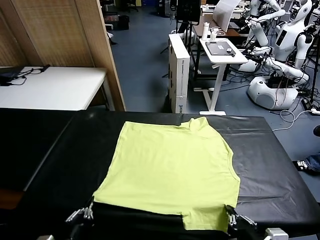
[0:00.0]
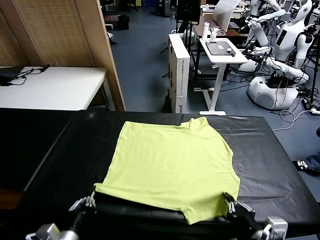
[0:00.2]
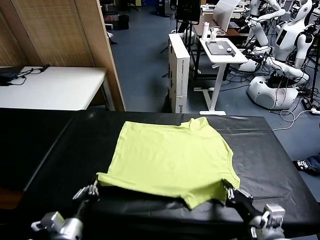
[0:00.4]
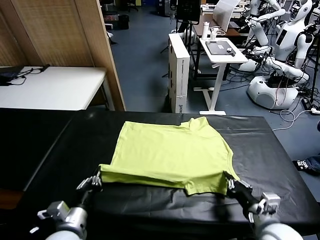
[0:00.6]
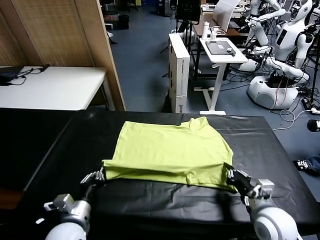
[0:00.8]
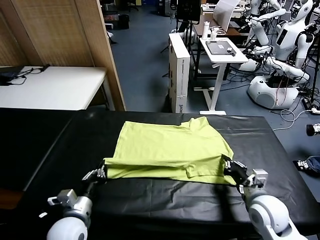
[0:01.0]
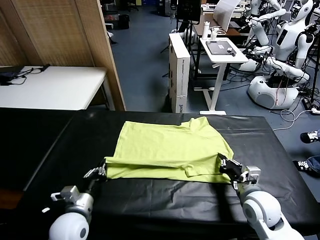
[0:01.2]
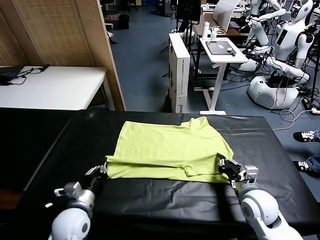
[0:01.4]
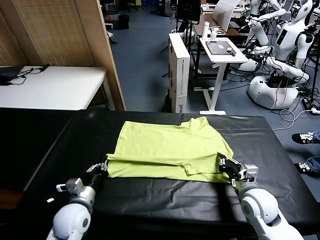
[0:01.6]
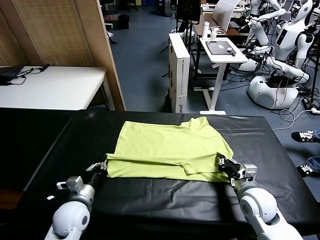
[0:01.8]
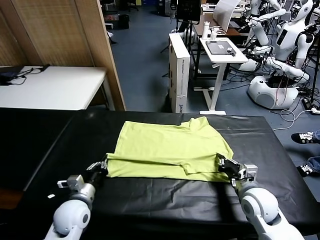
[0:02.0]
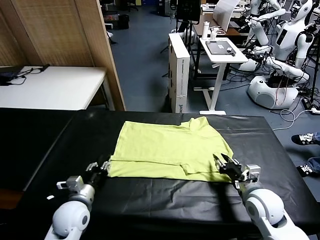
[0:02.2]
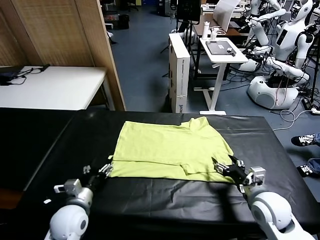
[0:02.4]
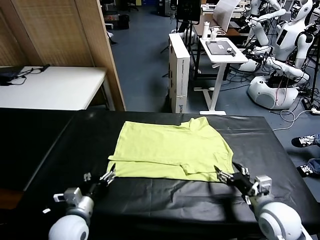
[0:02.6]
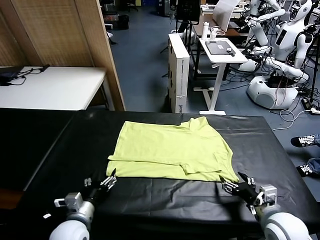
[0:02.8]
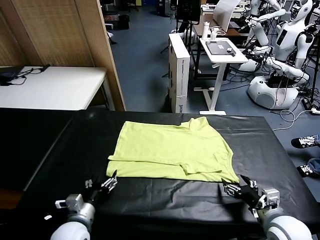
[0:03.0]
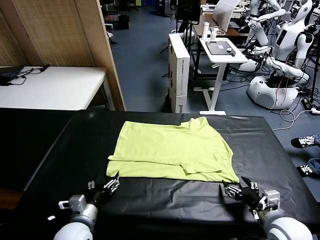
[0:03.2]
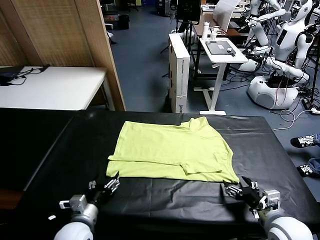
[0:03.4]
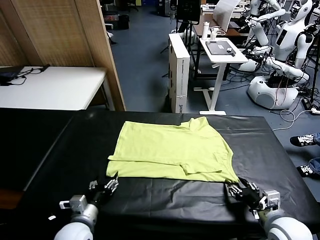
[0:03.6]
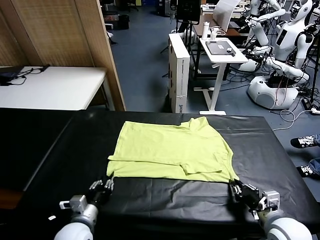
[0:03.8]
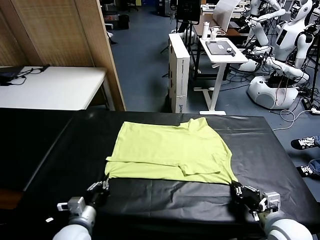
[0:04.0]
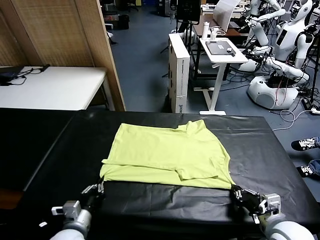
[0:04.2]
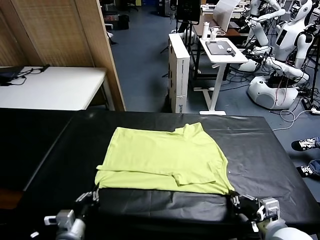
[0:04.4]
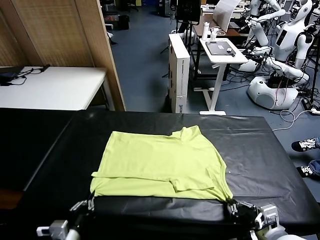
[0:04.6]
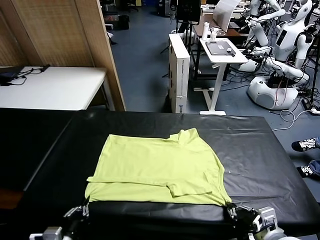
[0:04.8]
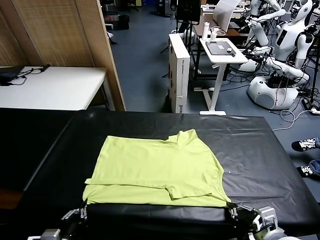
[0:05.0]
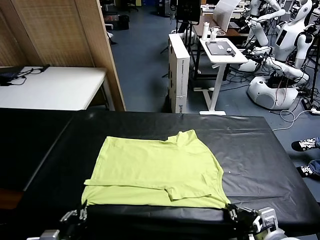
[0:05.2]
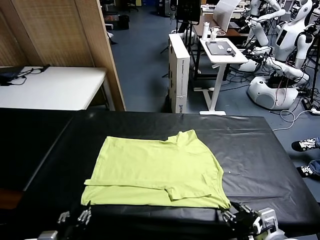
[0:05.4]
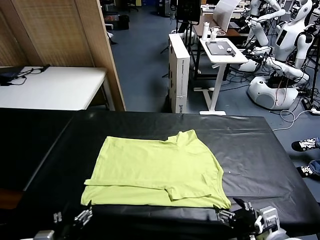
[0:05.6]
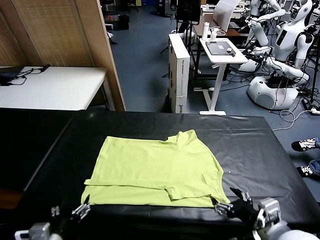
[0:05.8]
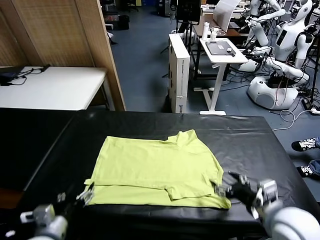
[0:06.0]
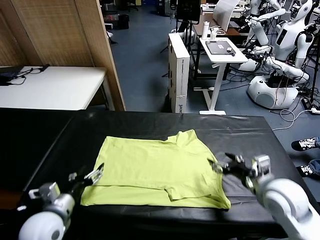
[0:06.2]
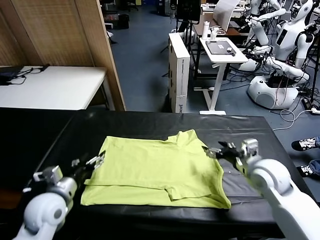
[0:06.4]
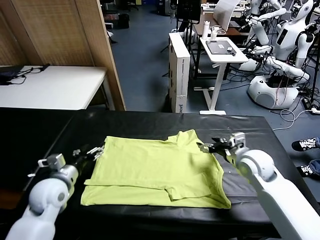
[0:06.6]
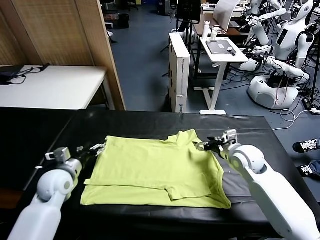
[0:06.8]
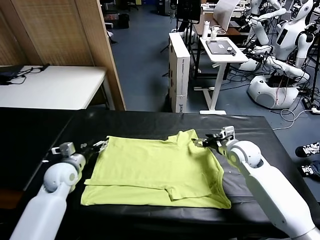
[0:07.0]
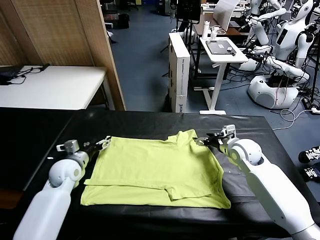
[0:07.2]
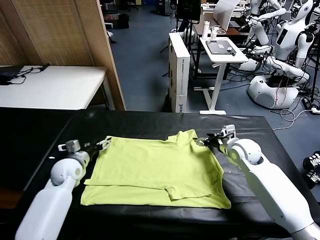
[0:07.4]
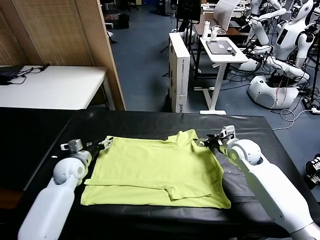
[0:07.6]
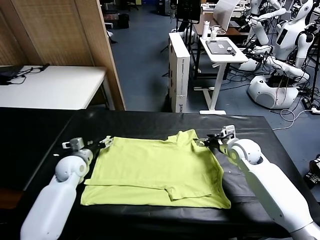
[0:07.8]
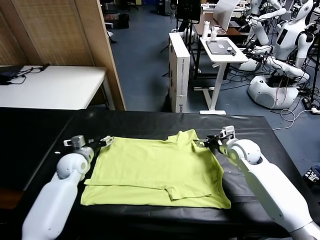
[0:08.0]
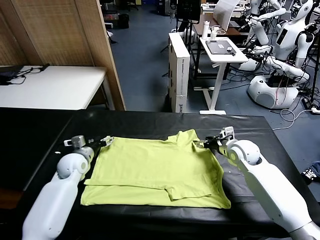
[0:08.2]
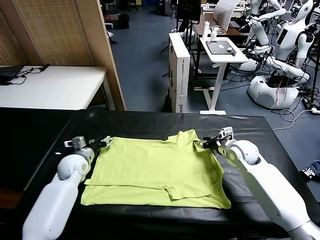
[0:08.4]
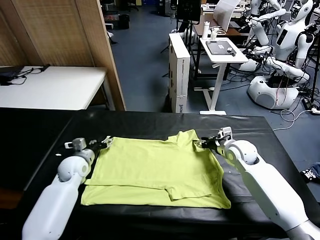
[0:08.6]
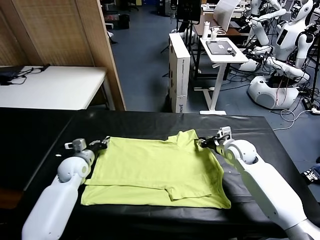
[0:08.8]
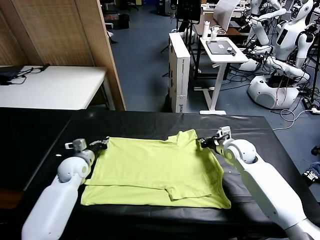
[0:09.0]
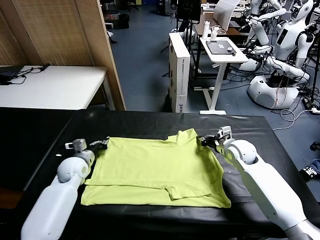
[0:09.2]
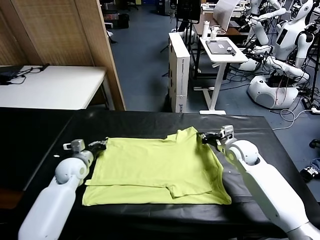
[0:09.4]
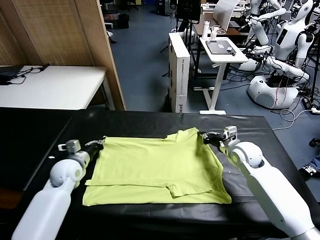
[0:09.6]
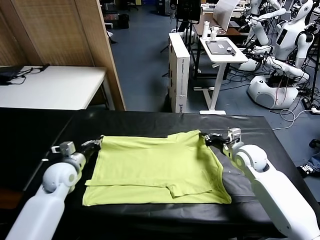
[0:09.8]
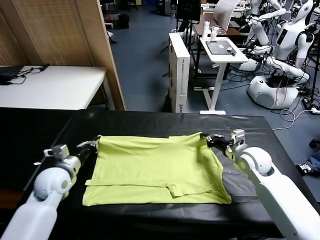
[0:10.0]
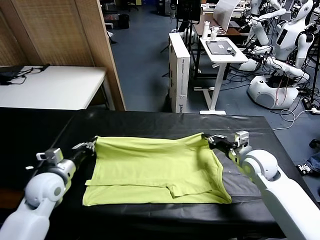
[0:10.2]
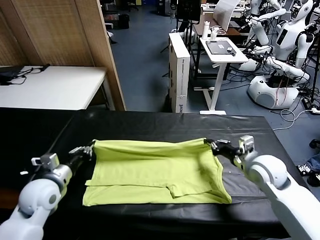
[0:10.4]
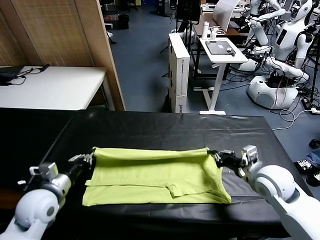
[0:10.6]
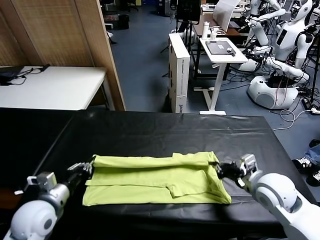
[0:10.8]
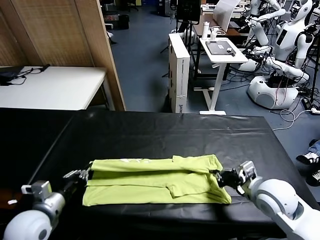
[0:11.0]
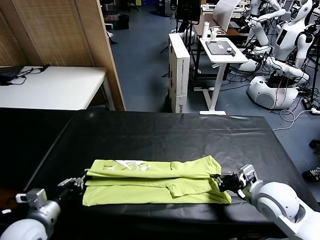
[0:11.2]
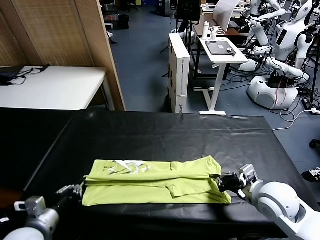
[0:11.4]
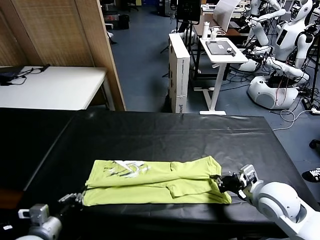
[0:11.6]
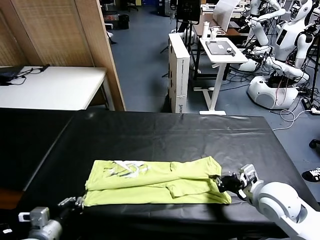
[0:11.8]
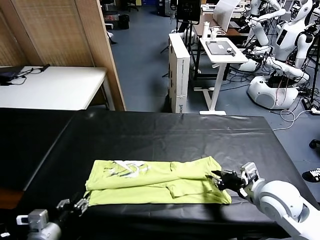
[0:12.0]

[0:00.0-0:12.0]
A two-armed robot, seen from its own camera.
Task of the whole recording: fold and organize the clothes.
Step, 0.0 to 2.2 s: use both grippers to drag the lower edge of the fabric forward and fold it over the upper edge.
Step, 2.4 to 5.4 s: Drag the clothes downward with both gripper.
Step, 5.6 to 9.0 s: use both grippers simultaneously to clamp the upper edge of the clothing fabric.
0.0 to 1.6 s: The right gripper goes about 20 cm forward and downward, while the left gripper travels forward by approximately 15 cm.
1.6 to 3.0 s: The right gripper travels backward by roughly 10 cm, and opens its fingers, while the left gripper goes some 5 cm backward, and opens.
3.0 to 4.4 s: The grippers both shift backward by approximately 5 cm. The right gripper closes its fingers. Meanwhile the left gripper closes its fingers.
4.4 to 6.0 s: The right gripper heads forward, covering some 15 cm, and opens; the left gripper moves forward and upward, roughly 10 cm, and opens.
6.0 to 7.6 s: Both grippers move forward, roughly 20 cm.
7.6 to 9.0 s: The left gripper closes. The right gripper closes its fingers.
9.0 to 10.4 s: Both grippers travel together backward and upward, some 15 cm.
10.4 to 12.0 s: The right gripper is displaced backward by roughly 5 cm, and opens. The left gripper goes about 15 cm backward, and opens up.

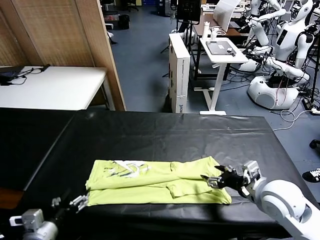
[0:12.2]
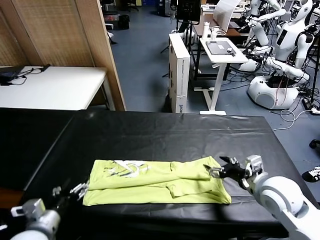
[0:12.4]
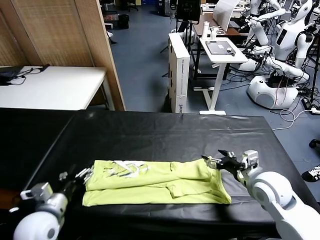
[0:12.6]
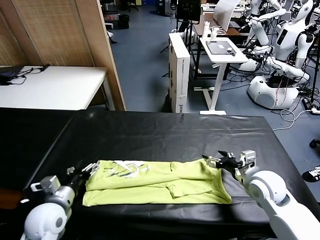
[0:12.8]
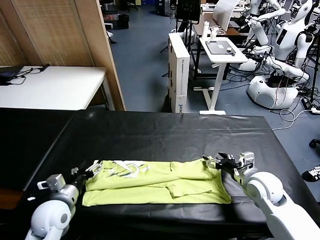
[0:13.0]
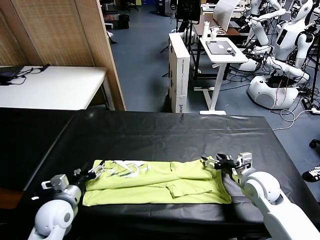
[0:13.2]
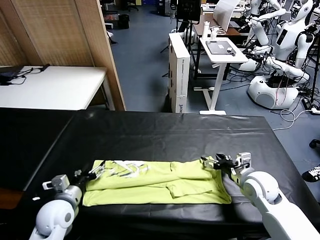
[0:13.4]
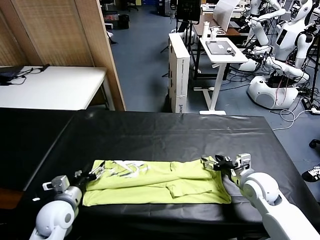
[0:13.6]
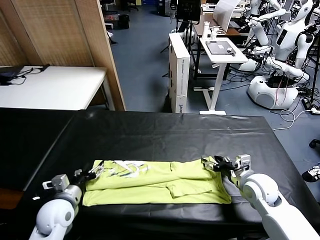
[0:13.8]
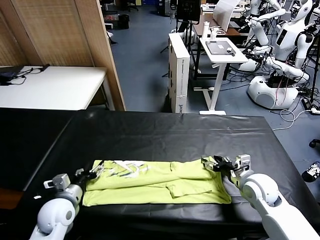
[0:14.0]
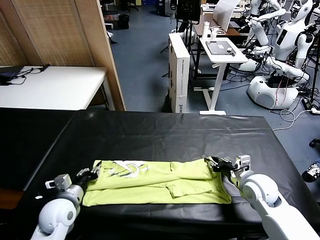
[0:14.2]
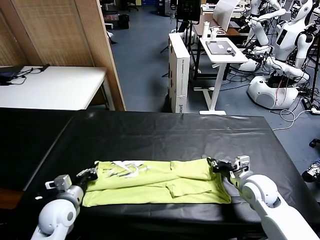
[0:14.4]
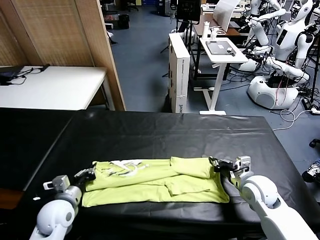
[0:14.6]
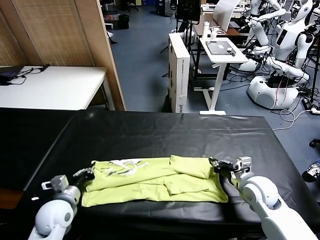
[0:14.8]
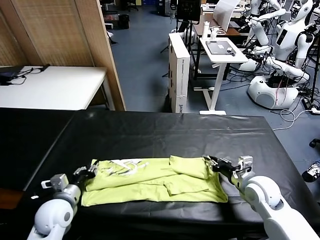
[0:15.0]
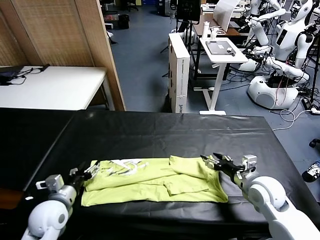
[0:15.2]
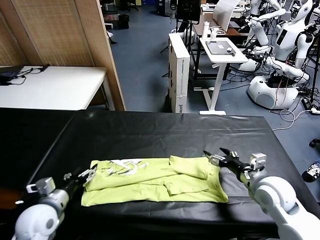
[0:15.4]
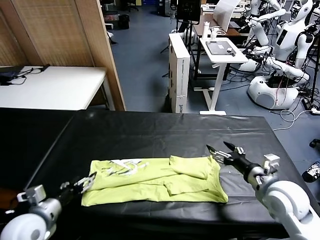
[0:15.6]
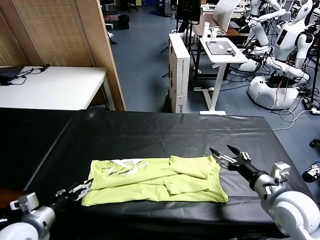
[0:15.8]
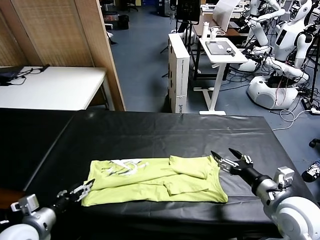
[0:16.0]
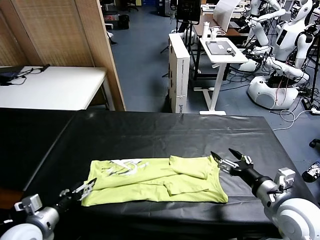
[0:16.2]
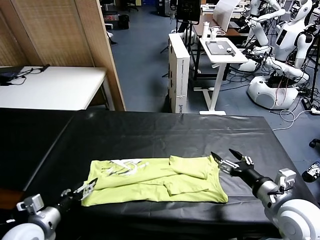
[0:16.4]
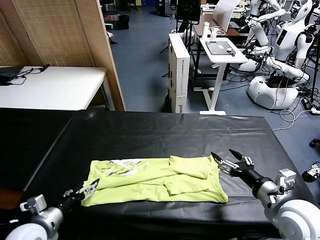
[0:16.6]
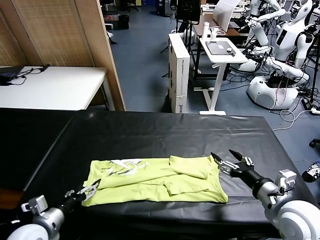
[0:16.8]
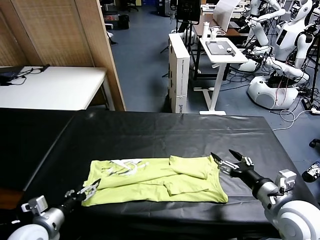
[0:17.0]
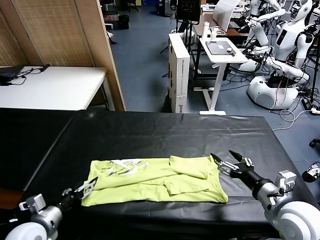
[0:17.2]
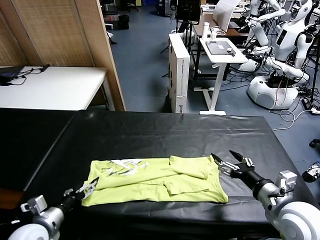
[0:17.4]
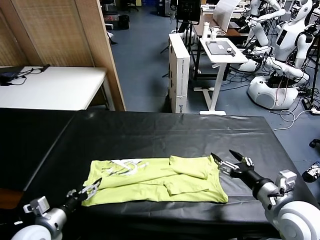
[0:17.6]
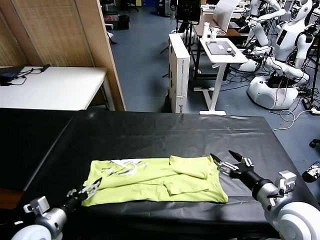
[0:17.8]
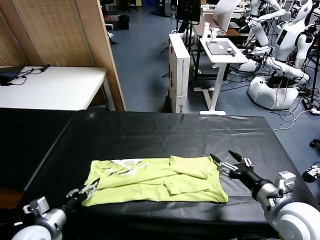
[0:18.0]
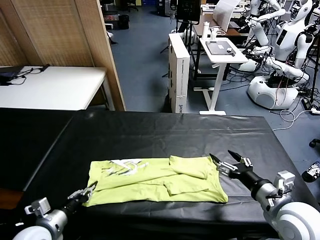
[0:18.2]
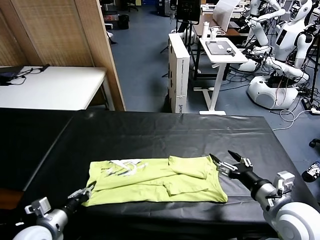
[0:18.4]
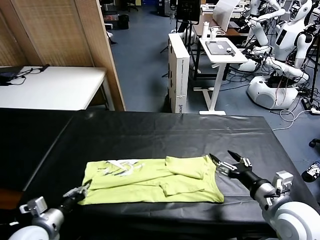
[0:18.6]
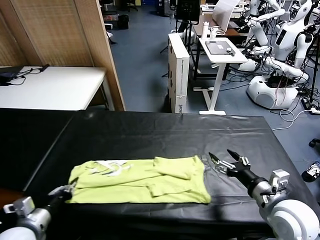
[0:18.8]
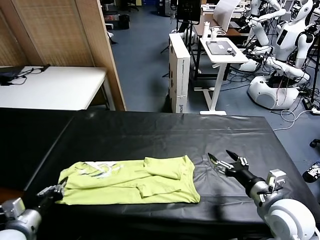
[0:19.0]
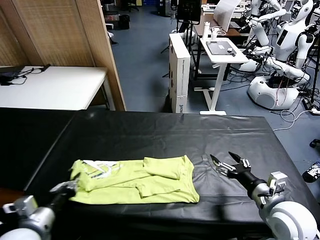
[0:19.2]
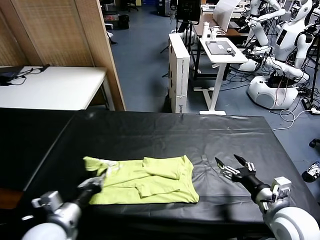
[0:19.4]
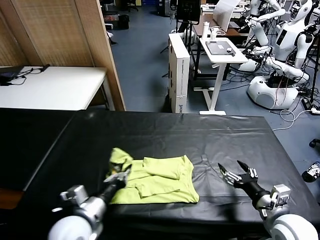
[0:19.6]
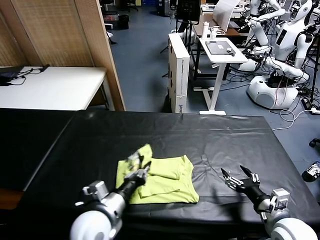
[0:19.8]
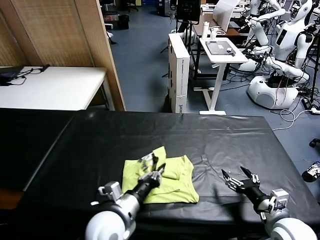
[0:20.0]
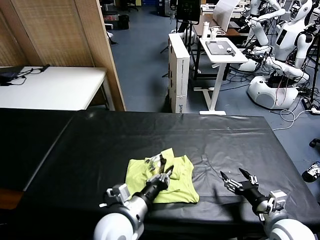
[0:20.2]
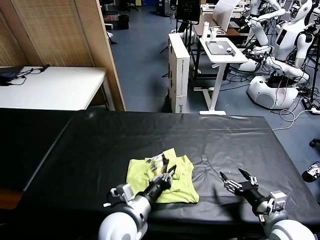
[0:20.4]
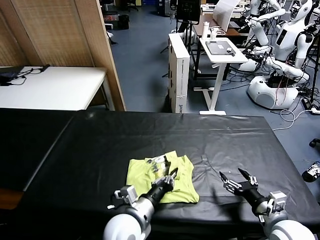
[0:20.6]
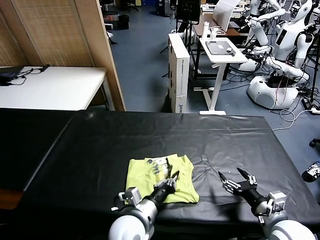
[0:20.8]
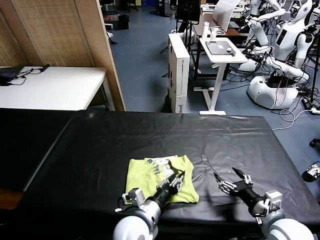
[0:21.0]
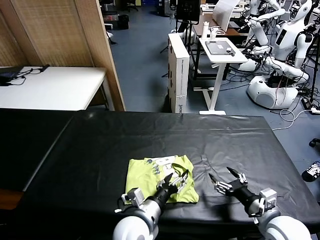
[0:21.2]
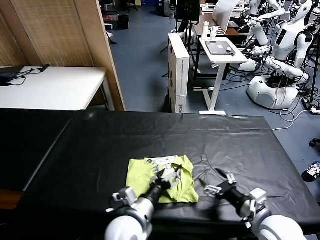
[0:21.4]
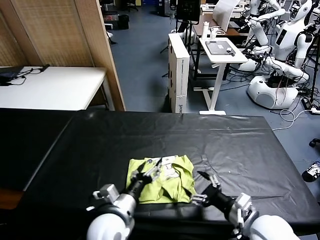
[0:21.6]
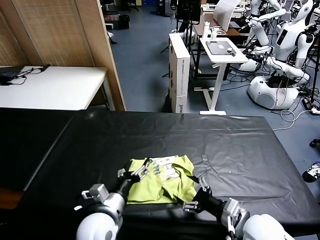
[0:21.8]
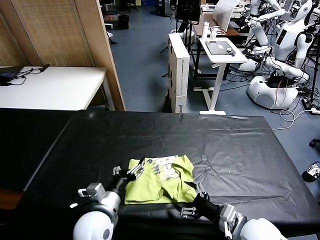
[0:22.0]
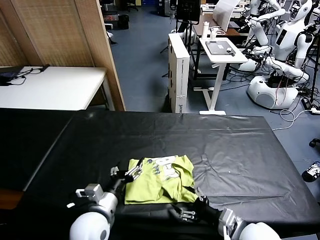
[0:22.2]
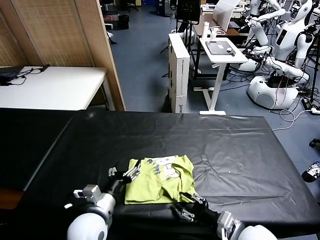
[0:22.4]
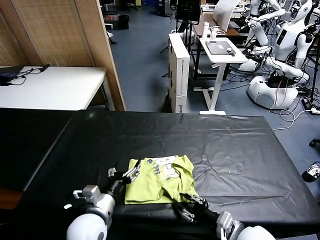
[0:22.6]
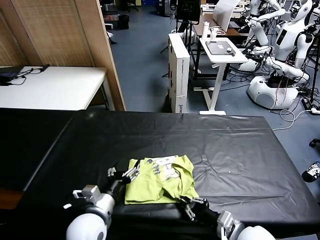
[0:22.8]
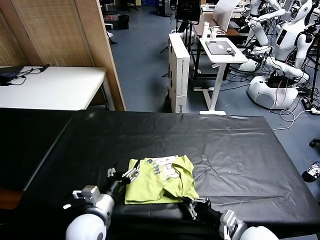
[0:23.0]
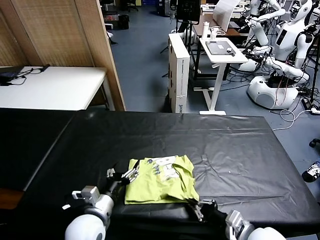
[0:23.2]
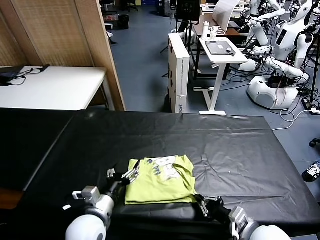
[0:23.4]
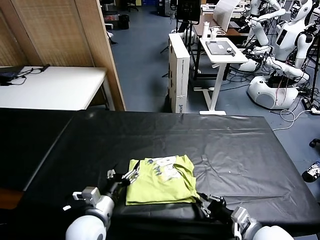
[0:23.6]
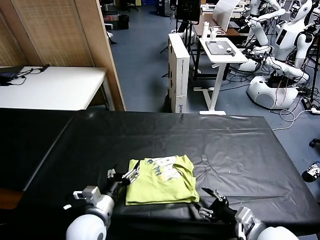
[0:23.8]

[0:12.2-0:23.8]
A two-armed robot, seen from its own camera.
Task of the whole recording: fold and organize the clothes.
Step, 12.2 to 18.4 s: use the left gripper to clamp the left edge of the fabric.
Step, 18.6 to 21.2 s: use the left gripper to drag the left edge of the fabric to the left and folds it over the right edge.
12.2 to 13.6 s: The right gripper goes some 10 cm downward and forward; the left gripper moves forward and downward, approximately 10 cm.
13.6 to 15.0 s: The left gripper closes, then reopens. The right gripper closes and opens again.
15.0 to 16.6 s: The right gripper shifts roughly 15 cm backward and upward; the left gripper travels backward by approximately 5 cm.
16.6 to 18.0 s: The left gripper closes up.
18.0 to 19.4 s: The left gripper travels to the right by roughly 15 cm; the right gripper moves downward, approximately 5 cm.
19.4 to 21.0 s: The left gripper is displaced to the right by some 15 cm, and opens its fingers.
21.0 to 22.4 s: The left gripper moves to the left, some 10 cm. Meanwhile the right gripper moves to the left, roughly 10 cm, and closes up.
22.4 to 23.8 s: The right gripper moves upward, roughly 5 cm, and opens up.
